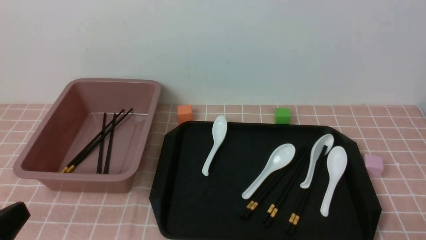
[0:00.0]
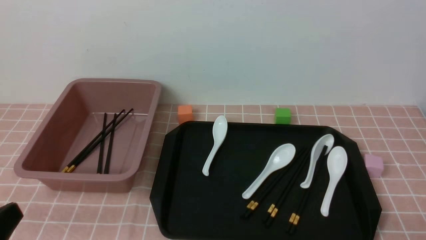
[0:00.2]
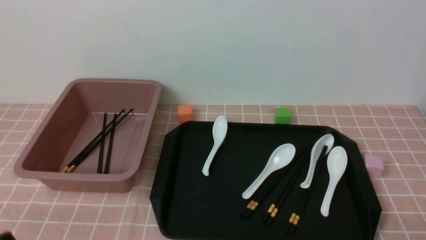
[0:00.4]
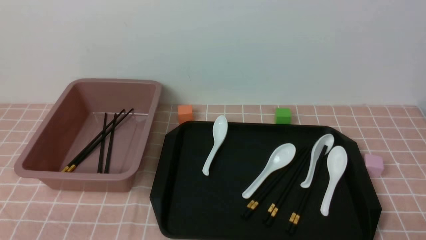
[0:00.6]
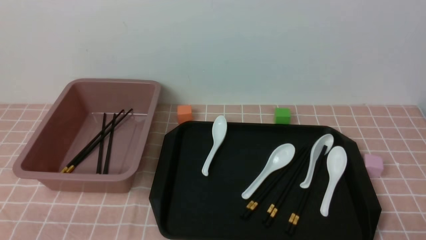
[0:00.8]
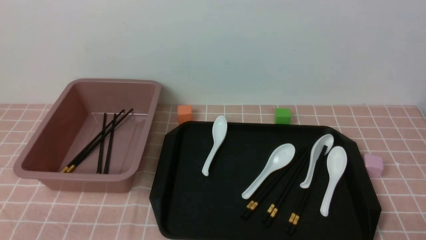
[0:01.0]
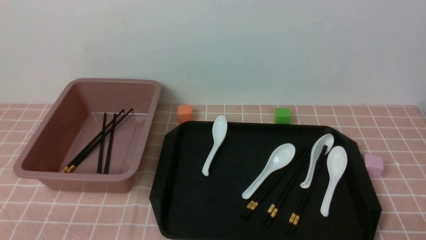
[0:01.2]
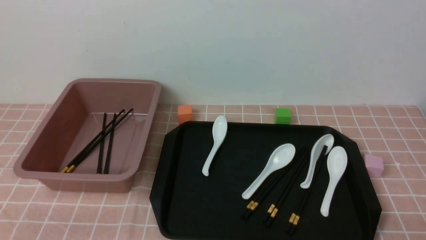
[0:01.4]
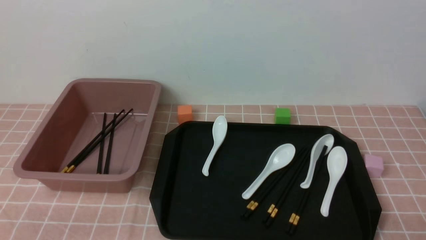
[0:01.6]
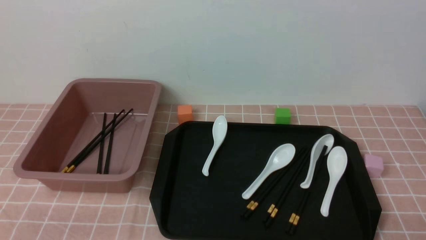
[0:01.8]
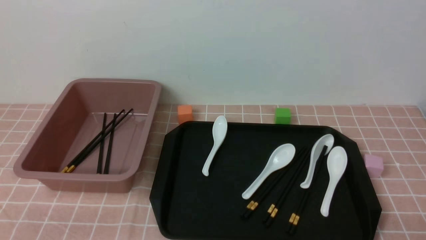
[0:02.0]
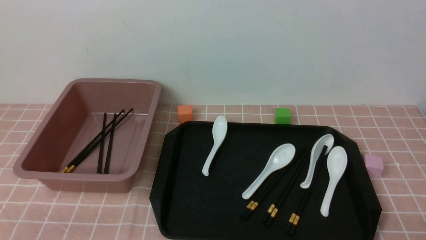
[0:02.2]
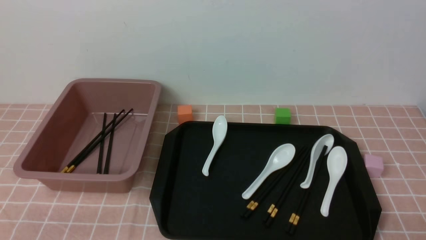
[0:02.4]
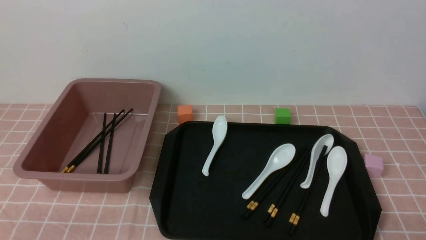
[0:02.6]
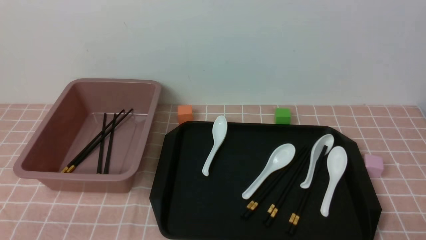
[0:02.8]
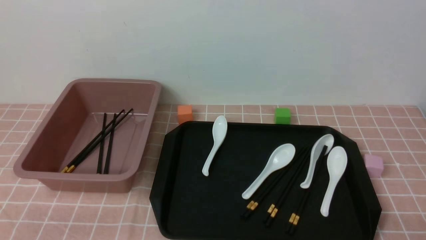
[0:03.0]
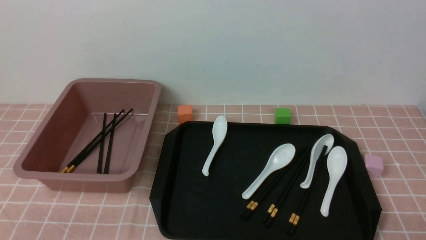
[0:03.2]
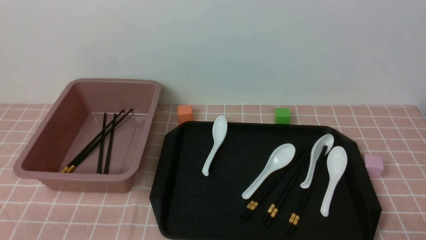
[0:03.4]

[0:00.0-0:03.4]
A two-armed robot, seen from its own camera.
0:00.0 to 0:01.6: The left gripper travels downward by roughly 10 cm.
0:01.6 to 0:03.4: Both grippers stay put.
